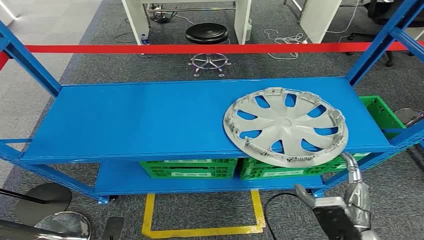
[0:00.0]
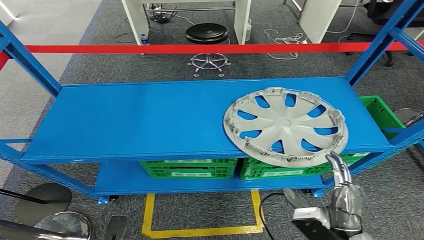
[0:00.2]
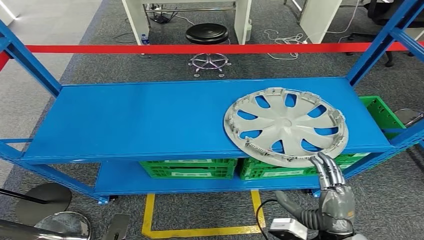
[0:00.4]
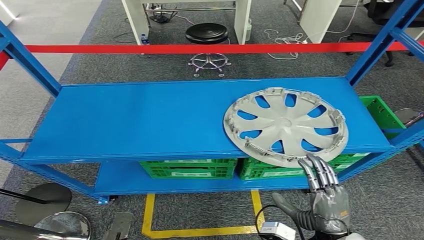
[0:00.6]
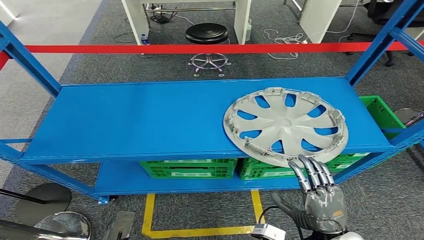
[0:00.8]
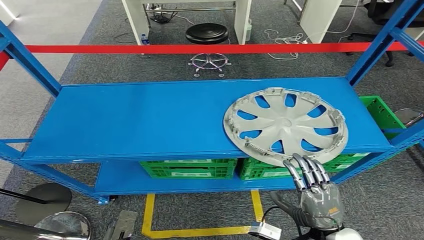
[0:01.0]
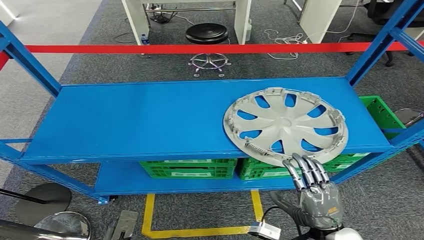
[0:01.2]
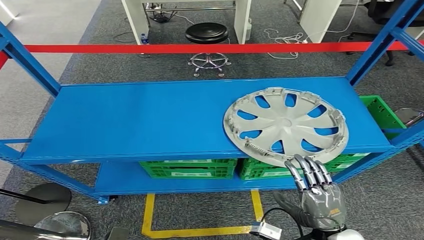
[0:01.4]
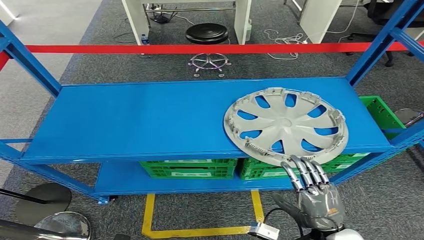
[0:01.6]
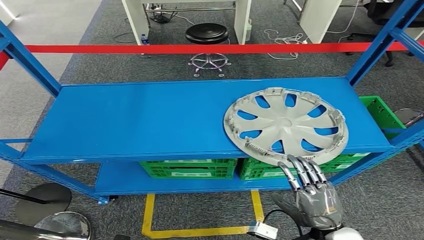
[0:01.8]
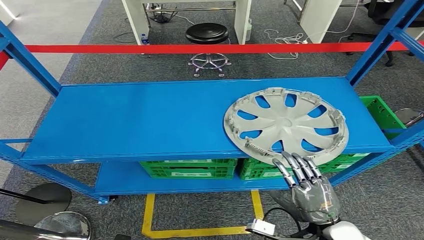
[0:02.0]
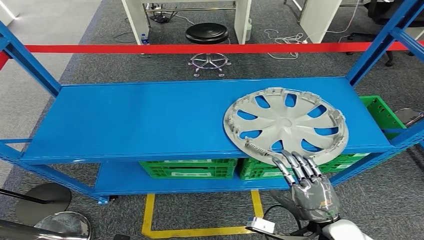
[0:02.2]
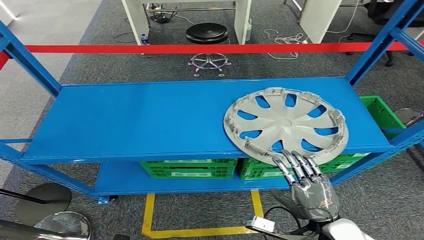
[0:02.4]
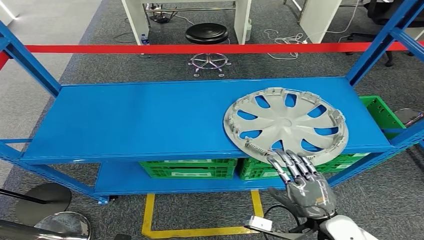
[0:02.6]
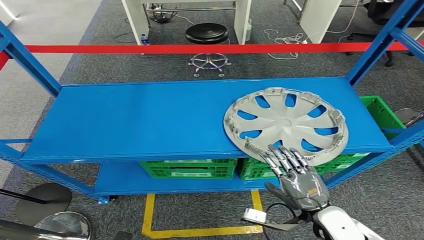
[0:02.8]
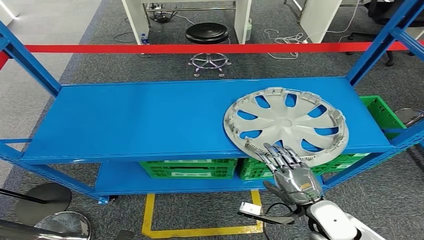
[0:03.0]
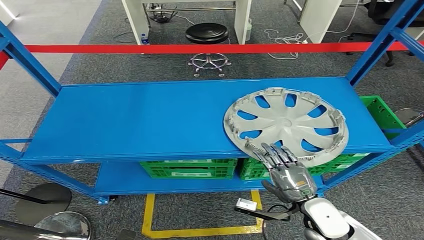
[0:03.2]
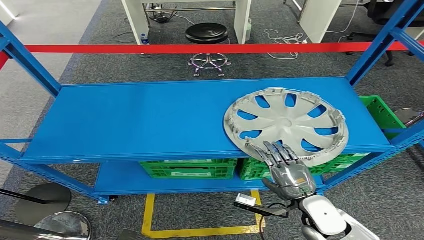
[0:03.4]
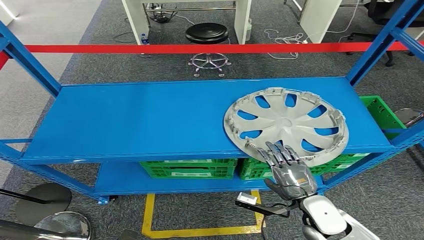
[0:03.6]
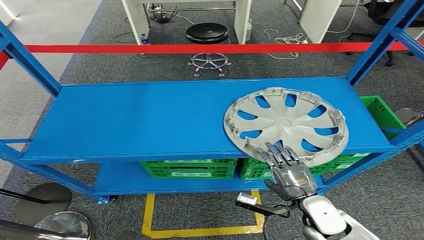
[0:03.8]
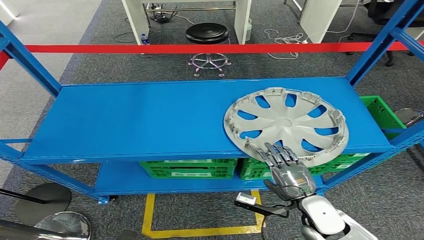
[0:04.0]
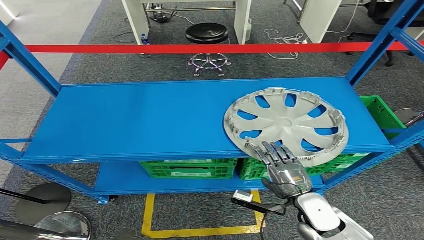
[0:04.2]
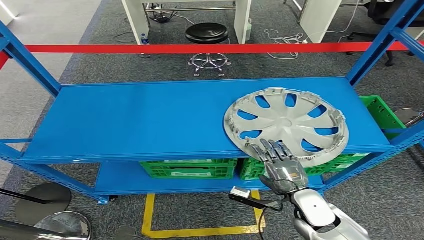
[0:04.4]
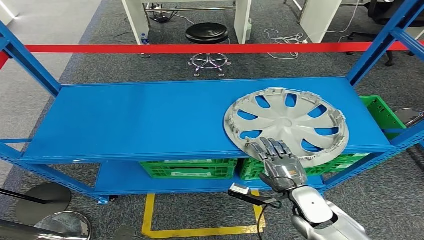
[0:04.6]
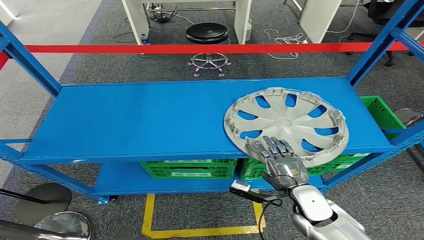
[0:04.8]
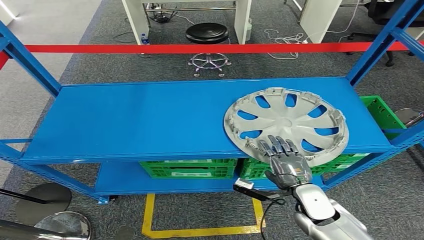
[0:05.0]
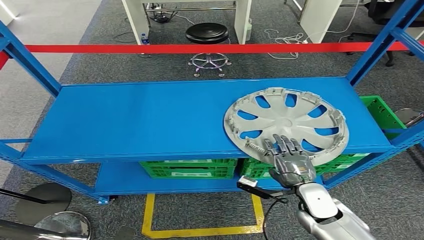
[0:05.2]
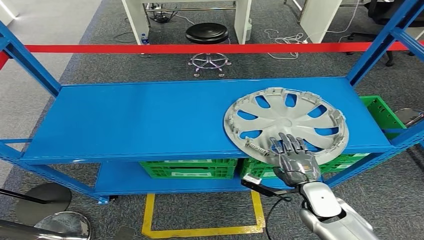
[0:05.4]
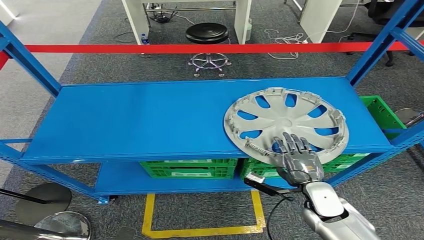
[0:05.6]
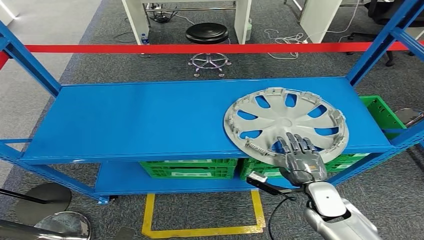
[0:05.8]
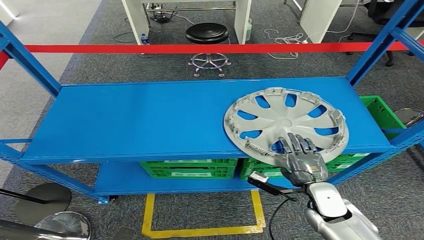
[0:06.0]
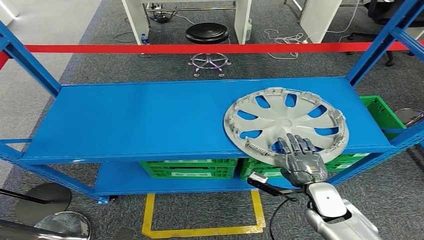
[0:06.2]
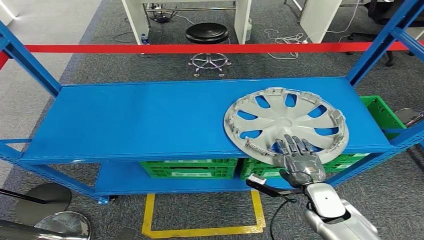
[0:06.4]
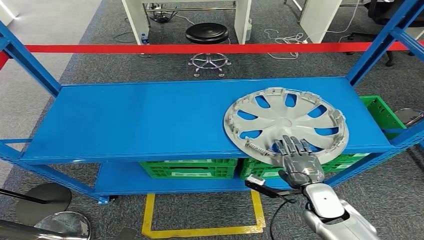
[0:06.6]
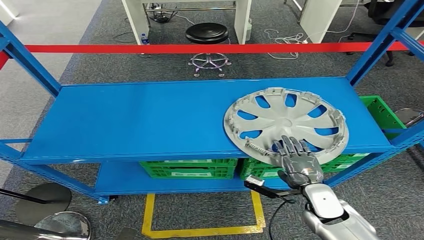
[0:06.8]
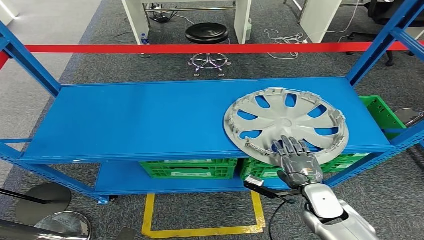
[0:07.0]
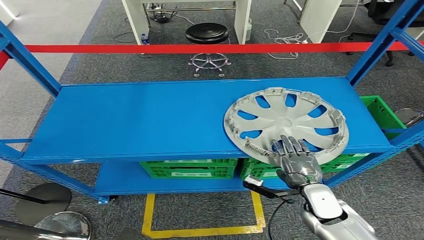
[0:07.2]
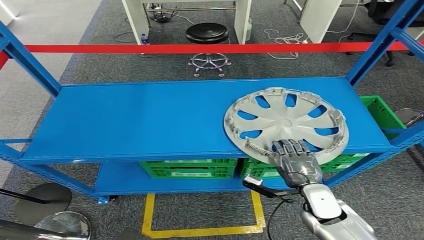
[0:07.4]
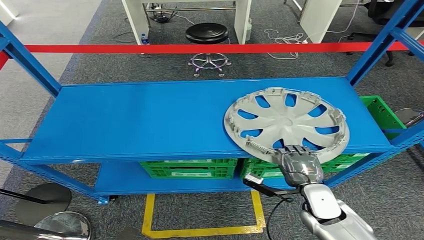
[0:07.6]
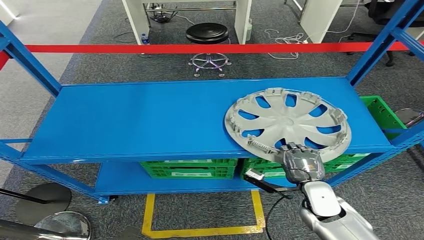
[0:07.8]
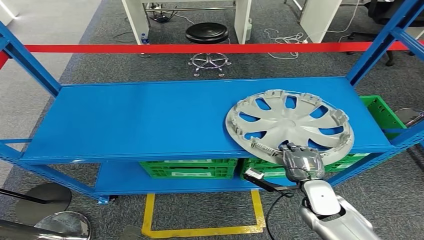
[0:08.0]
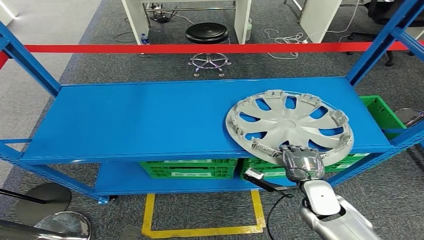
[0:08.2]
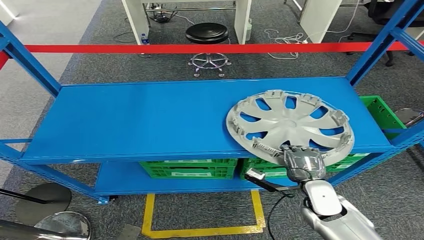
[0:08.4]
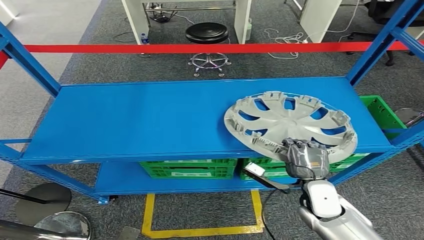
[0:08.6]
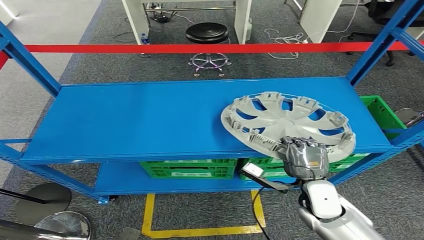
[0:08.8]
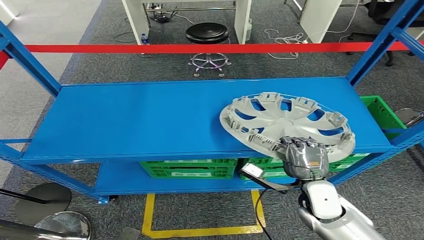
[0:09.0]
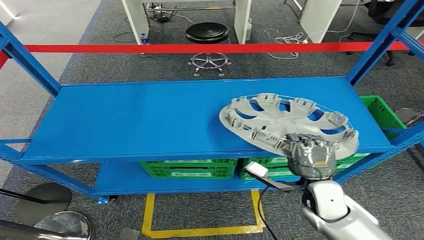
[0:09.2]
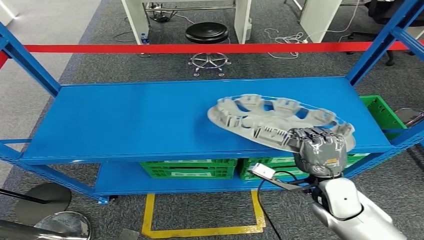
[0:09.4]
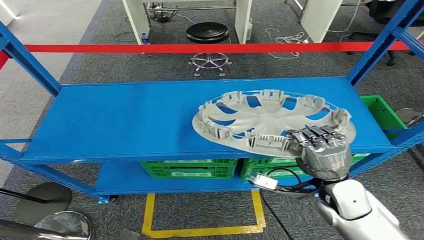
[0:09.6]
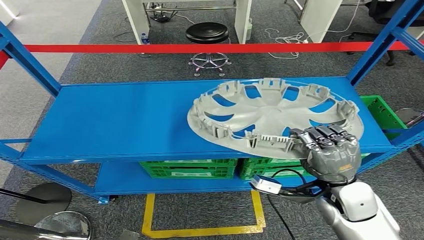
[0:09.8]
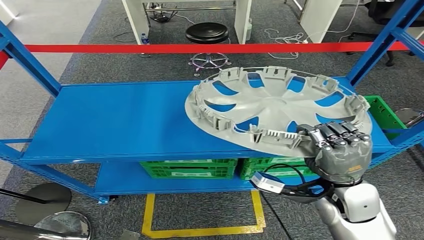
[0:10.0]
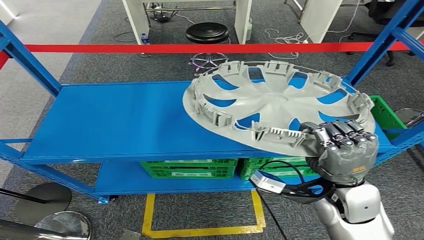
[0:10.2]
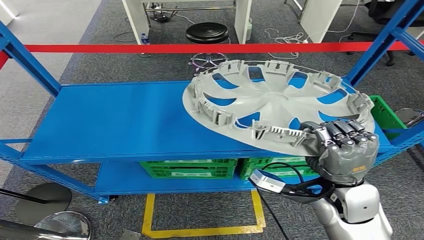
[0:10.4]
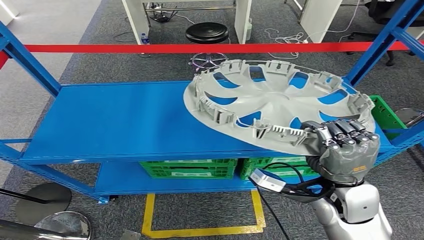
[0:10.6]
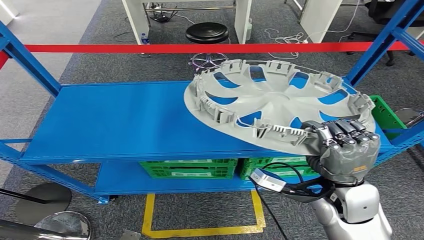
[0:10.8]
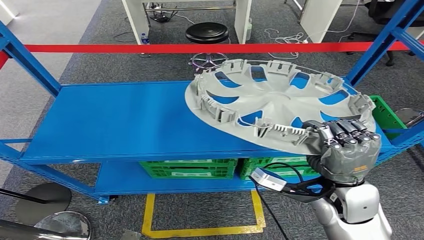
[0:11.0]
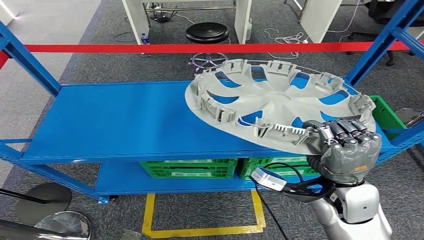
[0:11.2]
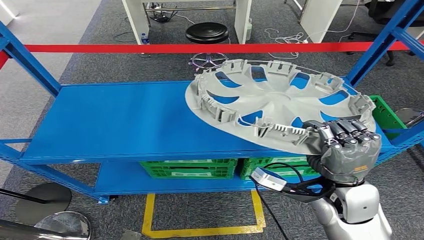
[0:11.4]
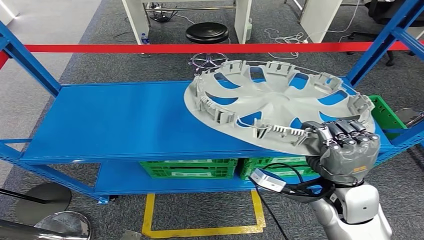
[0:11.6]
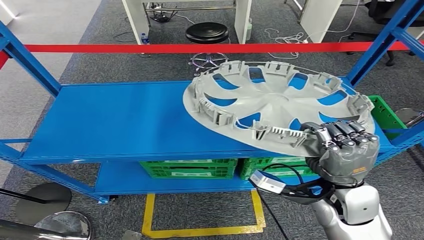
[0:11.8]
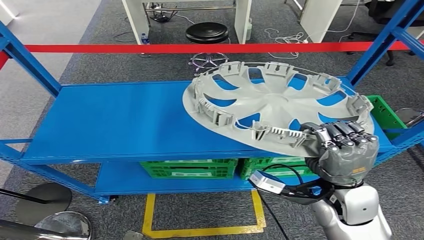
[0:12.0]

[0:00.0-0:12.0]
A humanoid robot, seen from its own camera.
0:01.6 to 0:03.0: The right hand shifts some 5 cm forward.
0:03.0 to 0:04.4: There are only small adjustments of the hands.
0:04.4 to 0:06.0: There are only small adjustments of the hands.
0:06.0 to 0:07.6: The two hands keep their place.
0:09.0 to 0:10.4: The right hand moves upward, some 10 cm.
0:10.4 to 0:12.0: Neither hand changes place.

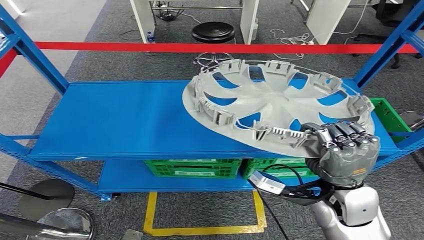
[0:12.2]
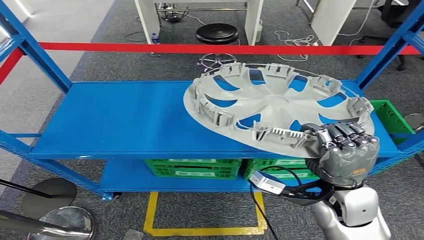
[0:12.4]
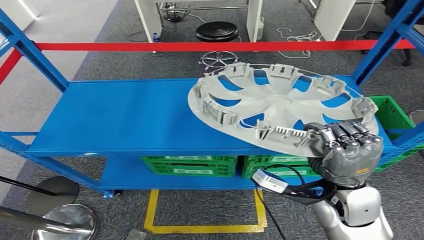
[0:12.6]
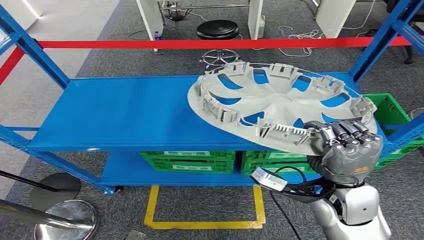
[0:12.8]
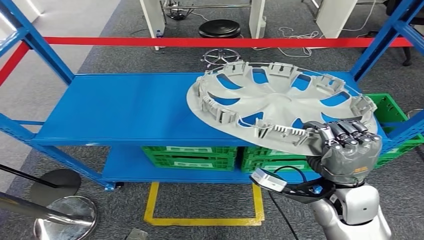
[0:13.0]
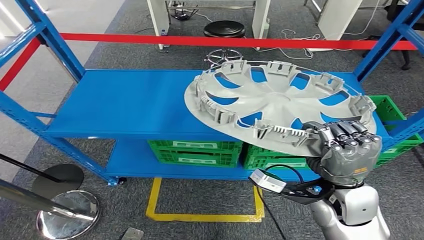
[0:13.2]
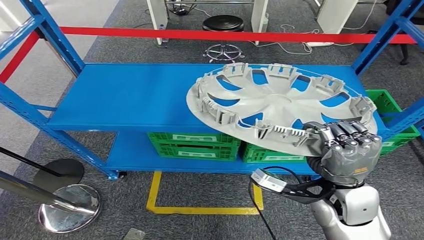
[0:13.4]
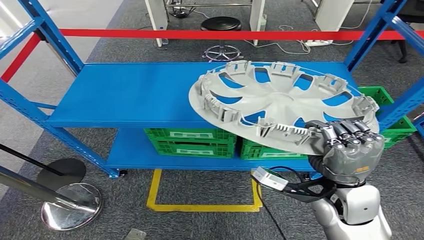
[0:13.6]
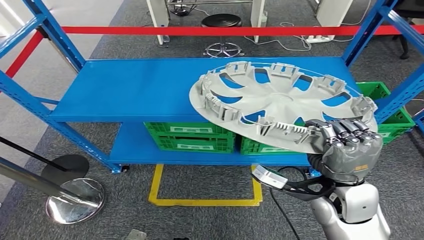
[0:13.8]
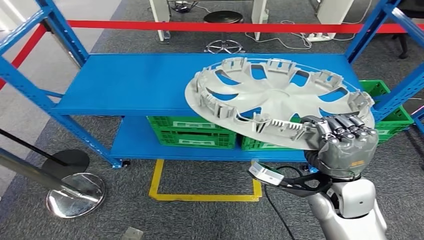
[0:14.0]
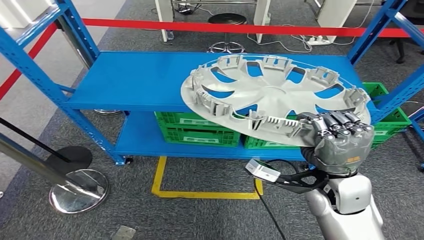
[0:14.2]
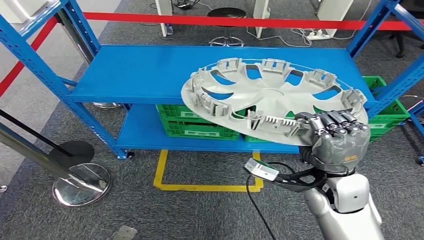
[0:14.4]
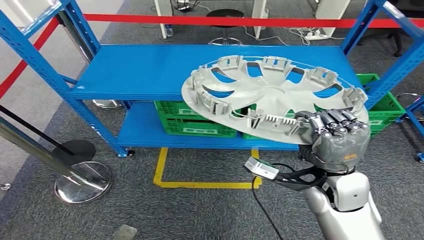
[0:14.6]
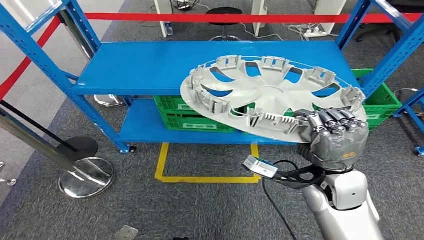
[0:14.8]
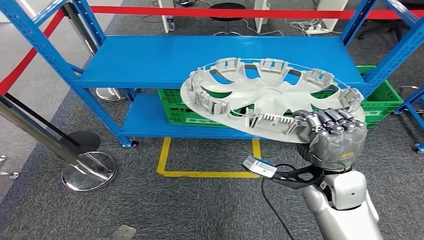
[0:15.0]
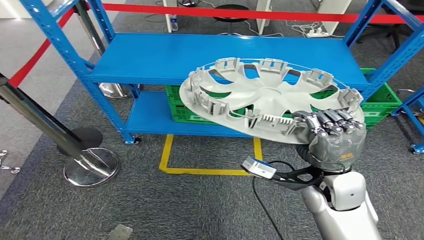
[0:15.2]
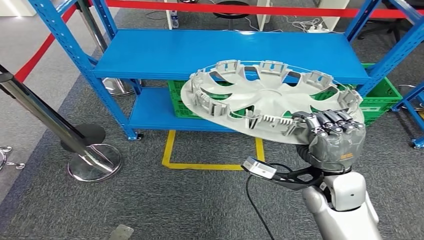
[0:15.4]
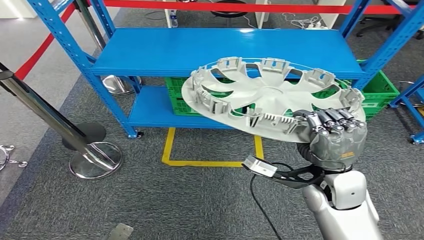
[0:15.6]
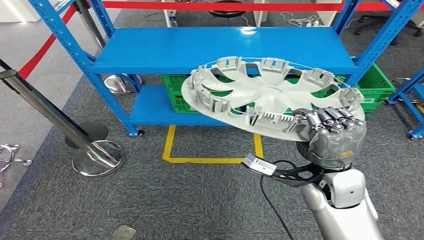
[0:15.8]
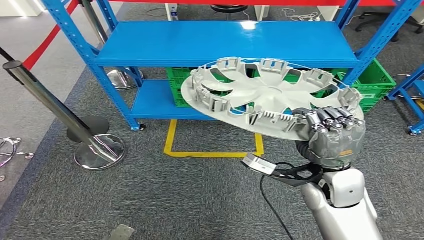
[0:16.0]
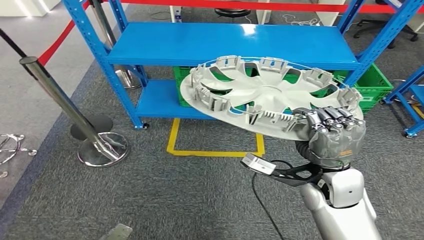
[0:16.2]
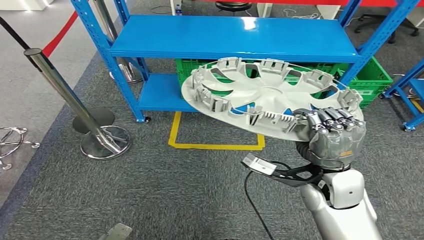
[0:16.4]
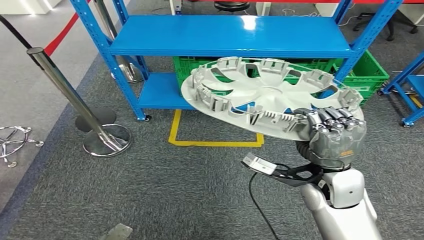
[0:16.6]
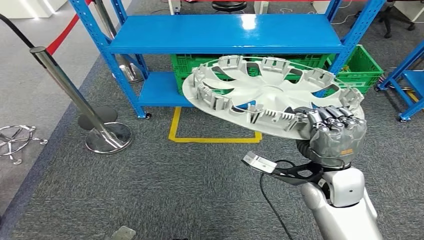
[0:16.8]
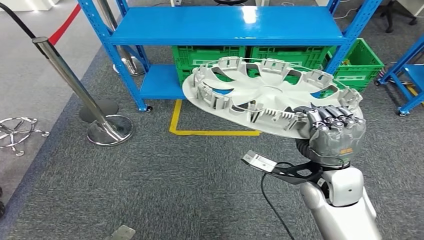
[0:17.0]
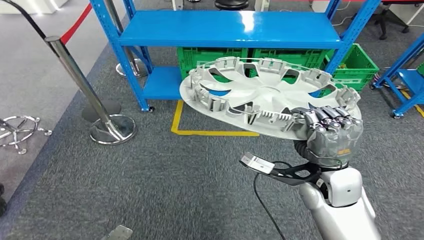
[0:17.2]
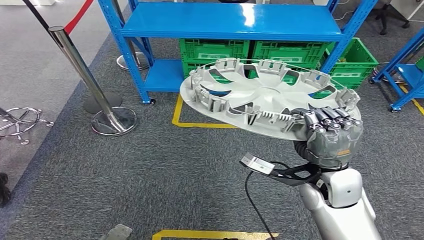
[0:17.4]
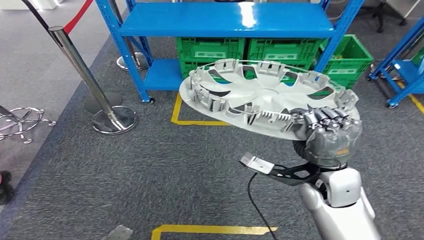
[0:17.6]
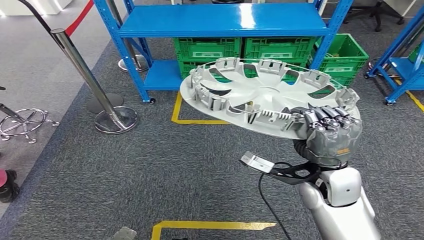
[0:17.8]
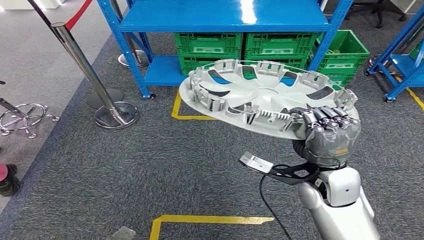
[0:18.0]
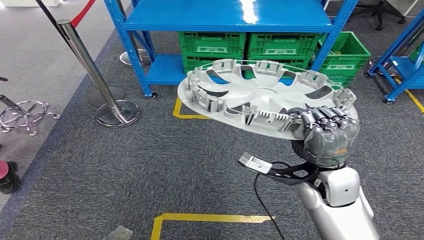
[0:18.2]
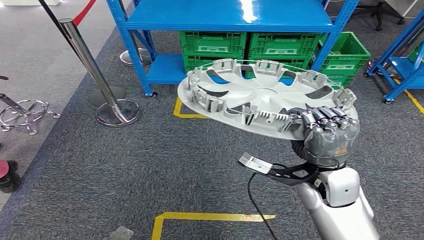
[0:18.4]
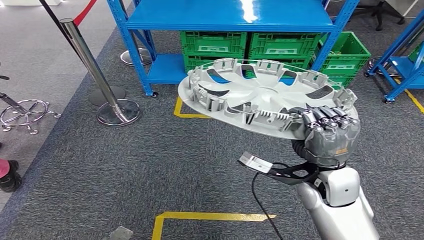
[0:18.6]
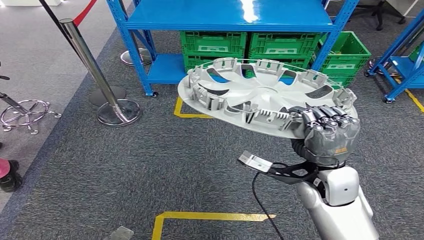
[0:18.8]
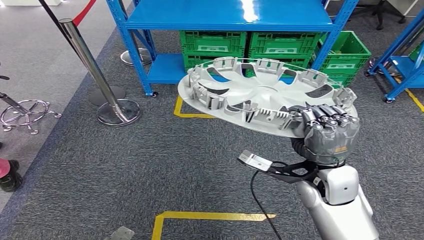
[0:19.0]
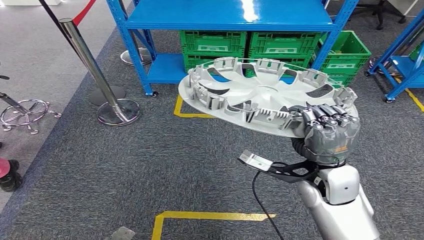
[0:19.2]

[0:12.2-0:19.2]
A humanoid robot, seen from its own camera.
Step, 0:12.2 to 0:14.8: Take small components from the rack.
